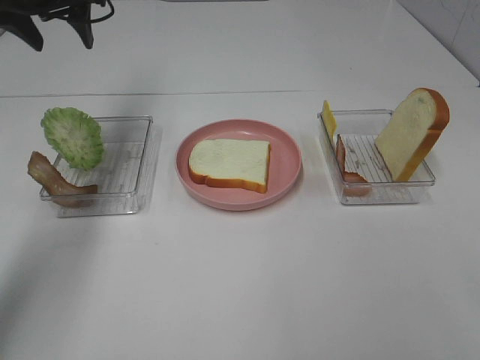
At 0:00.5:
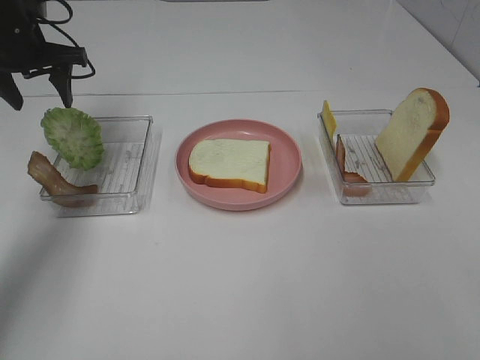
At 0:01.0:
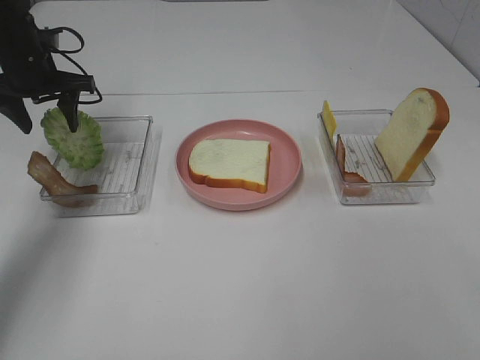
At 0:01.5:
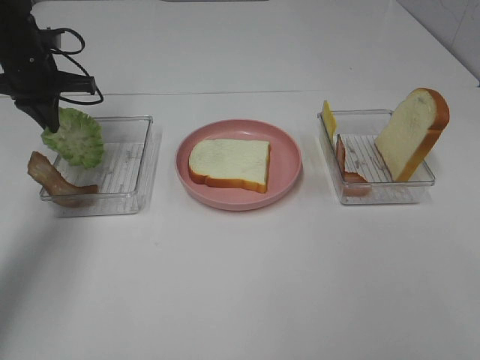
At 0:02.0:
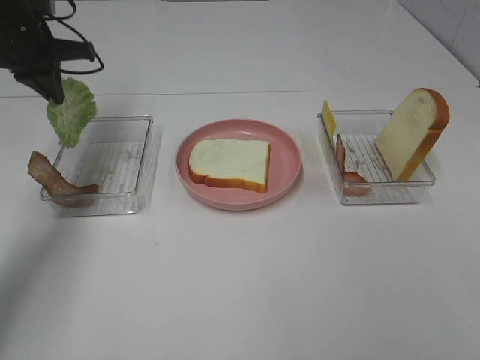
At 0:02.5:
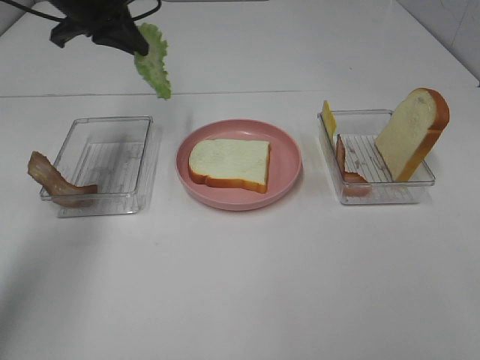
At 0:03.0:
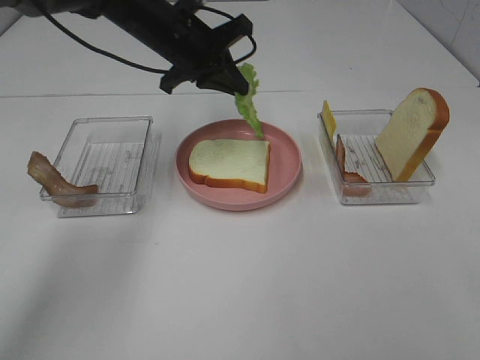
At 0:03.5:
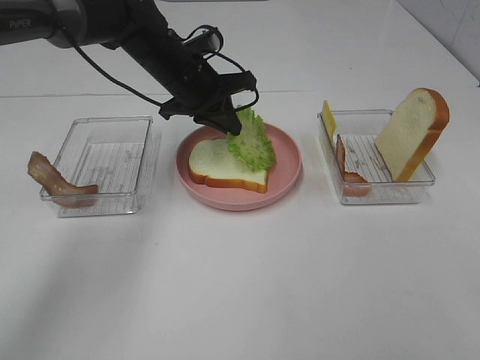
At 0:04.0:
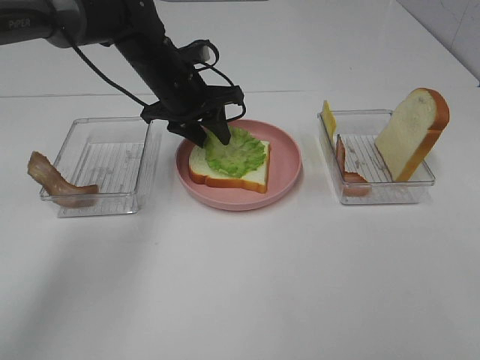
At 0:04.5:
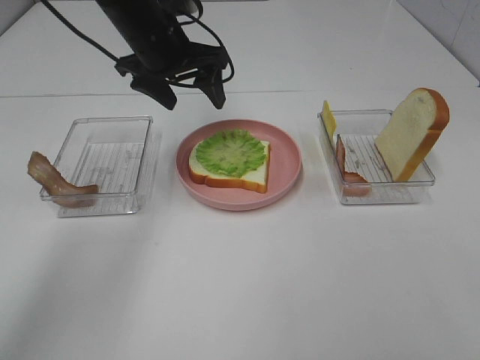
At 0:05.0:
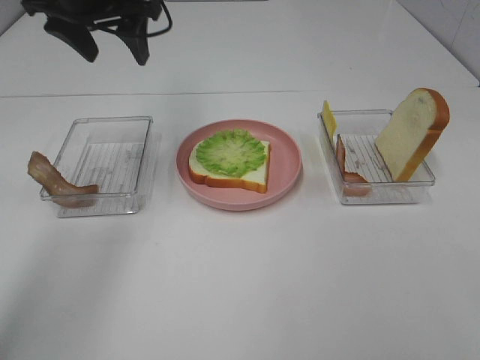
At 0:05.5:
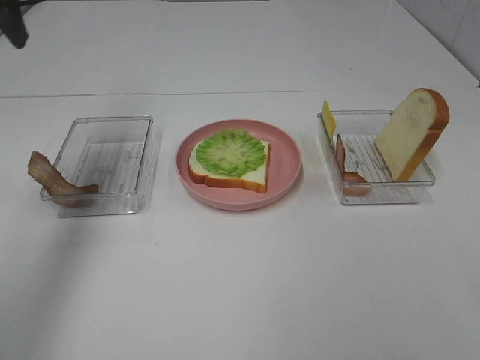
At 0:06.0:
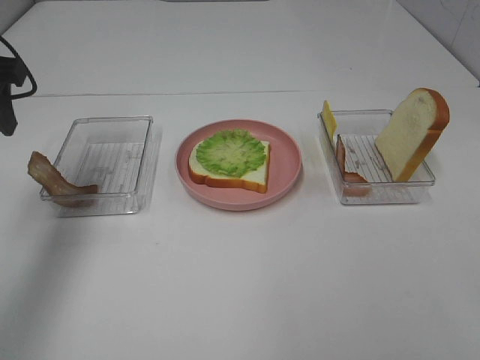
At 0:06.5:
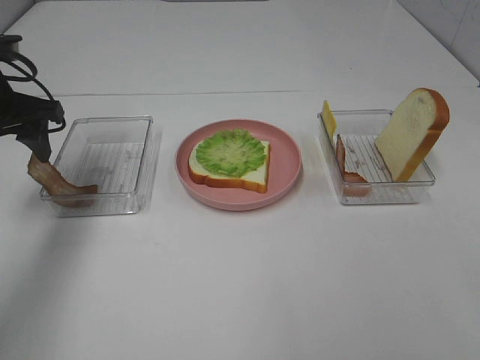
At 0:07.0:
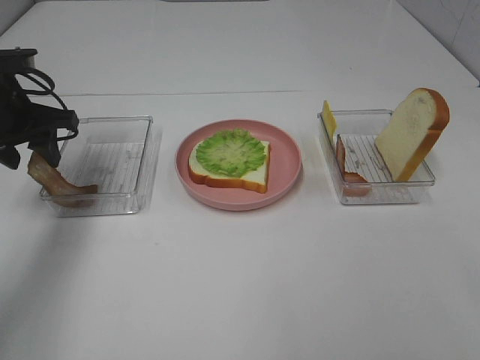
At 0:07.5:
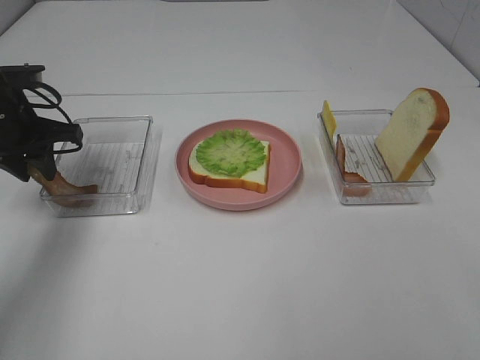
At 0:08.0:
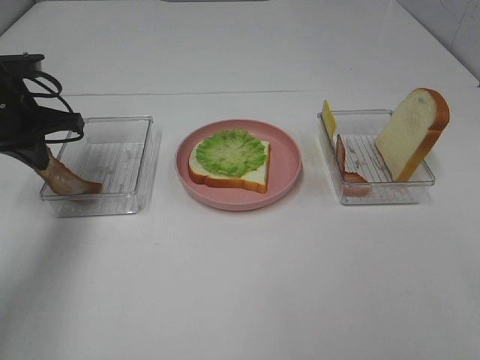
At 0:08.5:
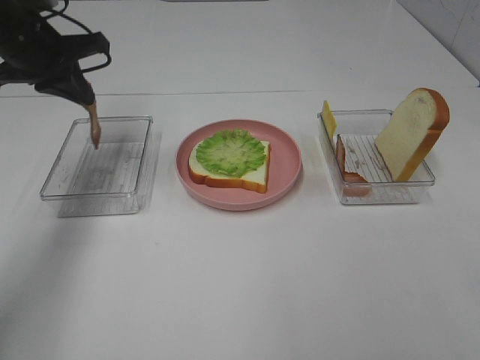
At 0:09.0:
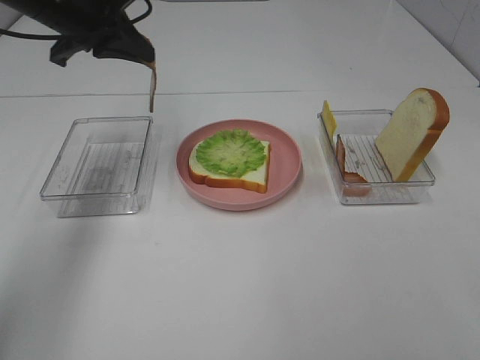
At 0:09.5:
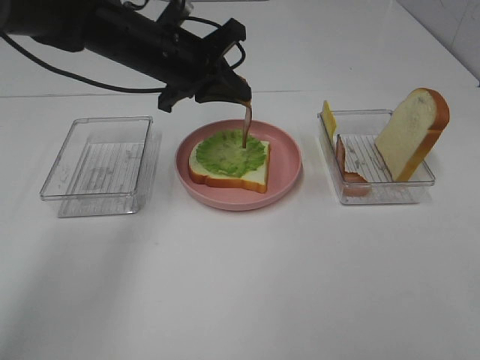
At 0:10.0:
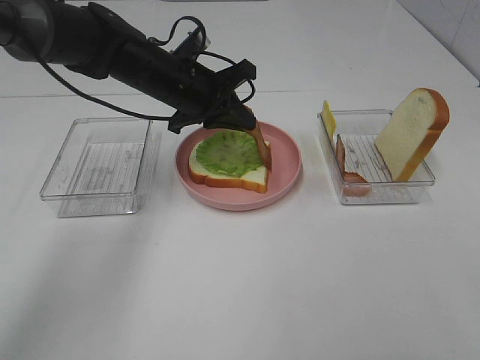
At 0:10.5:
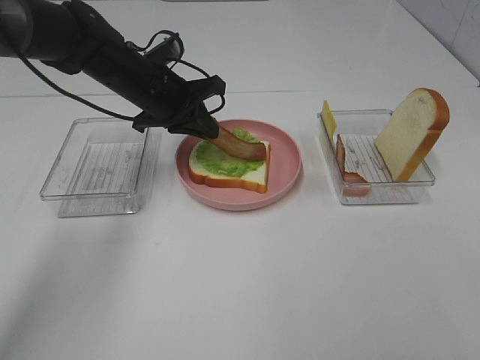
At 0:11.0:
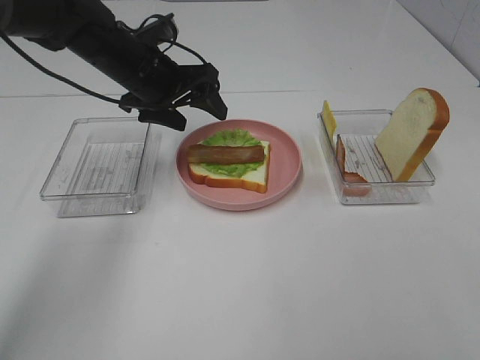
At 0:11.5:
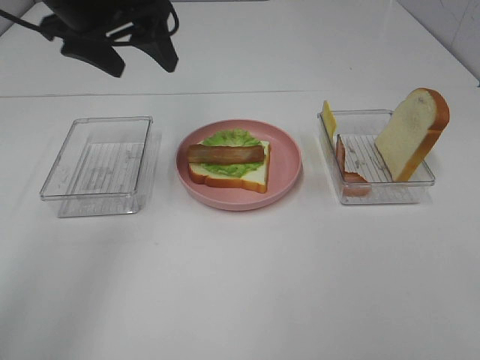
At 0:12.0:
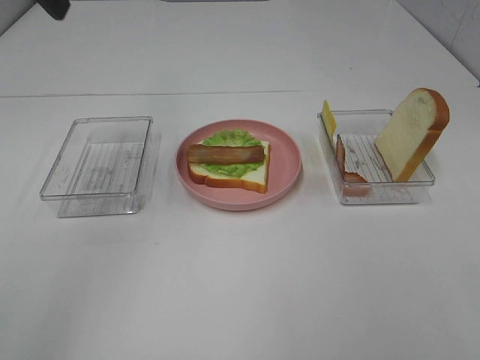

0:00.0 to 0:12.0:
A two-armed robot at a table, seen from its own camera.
Task of the whole recording: Make sandwiches.
Step, 0:00.0 to 0:01.5: Left hand:grab the lettuce slice.
Step, 0:02.0 to 0:04.0: Left hand:place the lettuce slice on the bread slice.
Step, 0:04.5 to 0:08.0: Left hand:grab the bacon.
Step, 0:08.5 to 0:11.0: Left hand:place bacon on lettuce slice.
0:00.0 to 0:02.0: The left gripper heads downward, covering some 5 cm, and closes up.
0:02.0 to 0:04.0: The left gripper is displaced to the right by approximately 20 cm, and opens its fingers.
0:04.0 to 0:06.0: The left gripper heads to the left, backward and upward, covering roughly 25 cm.
0:06.0 to 0:08.0: The left gripper travels downward and forward by roughly 10 cm, and closes.
0:08.0 to 0:10.0: The left gripper moves to the right, about 20 cm.
0:10.0 to 0:12.0: The left gripper travels upward, to the left and backward by approximately 30 cm, and opens up.

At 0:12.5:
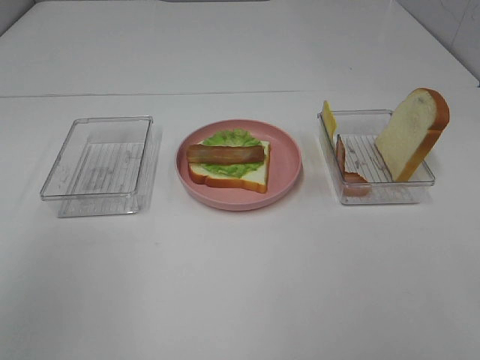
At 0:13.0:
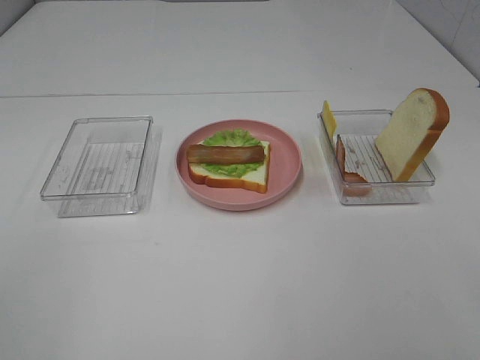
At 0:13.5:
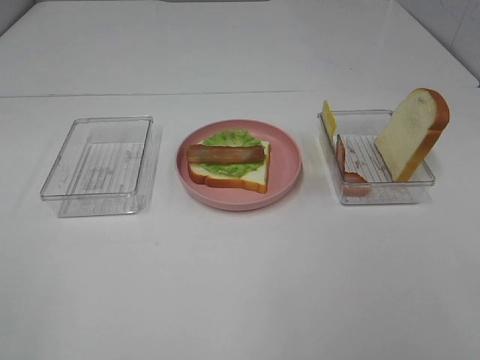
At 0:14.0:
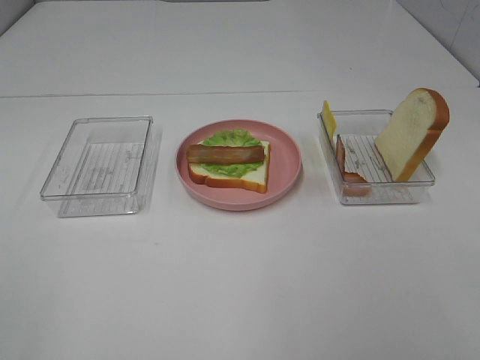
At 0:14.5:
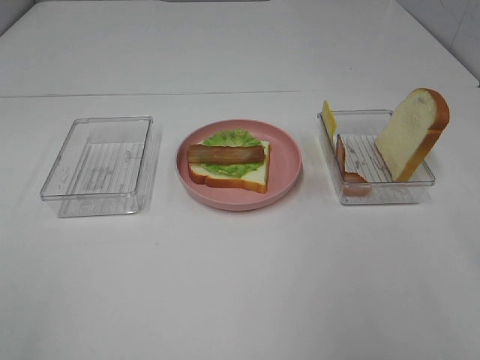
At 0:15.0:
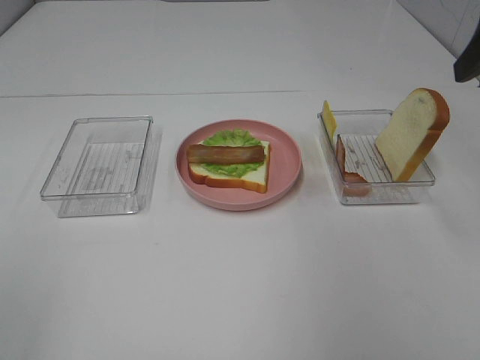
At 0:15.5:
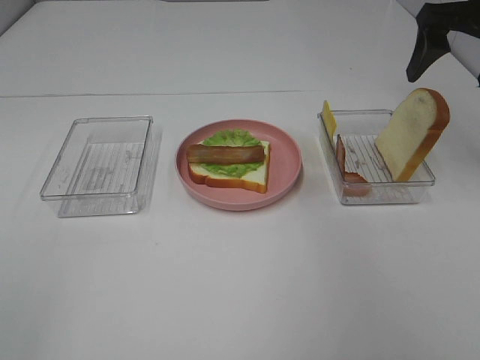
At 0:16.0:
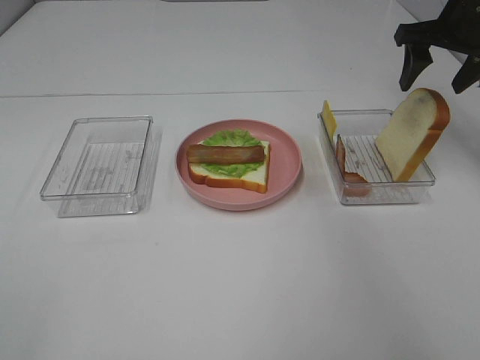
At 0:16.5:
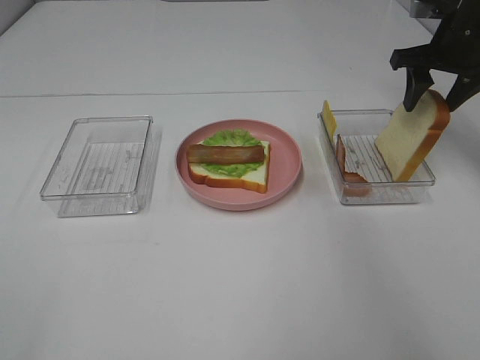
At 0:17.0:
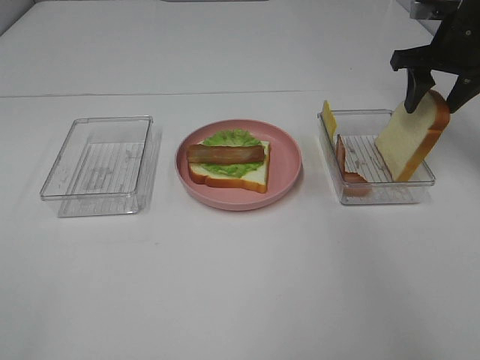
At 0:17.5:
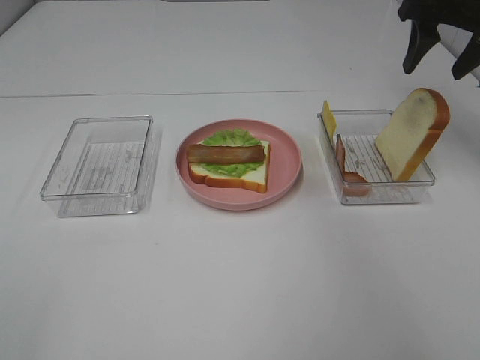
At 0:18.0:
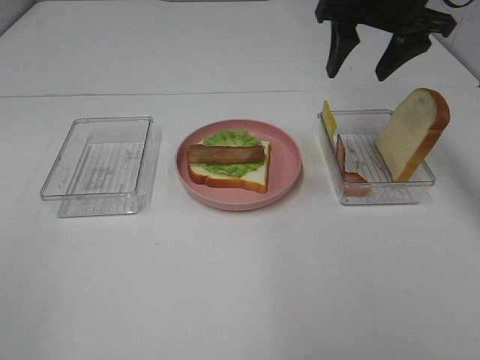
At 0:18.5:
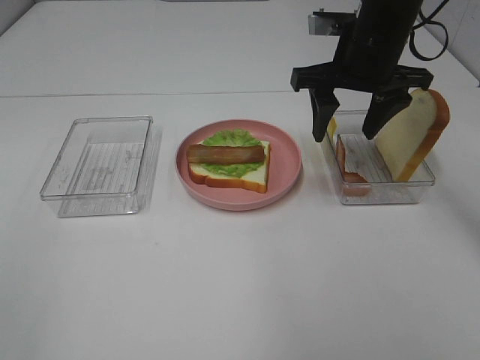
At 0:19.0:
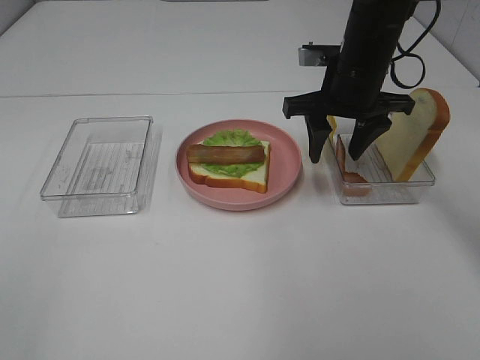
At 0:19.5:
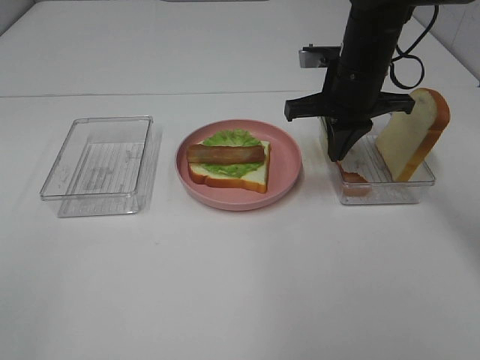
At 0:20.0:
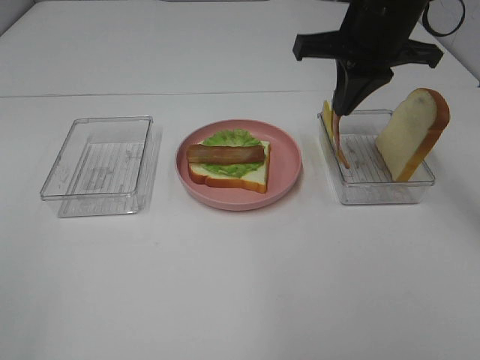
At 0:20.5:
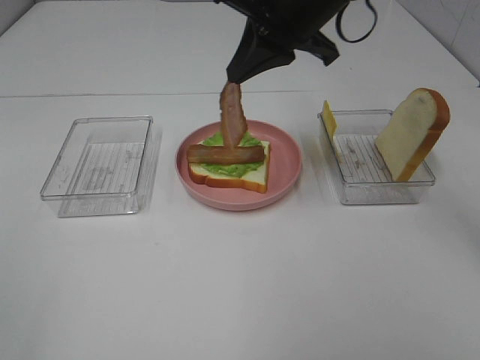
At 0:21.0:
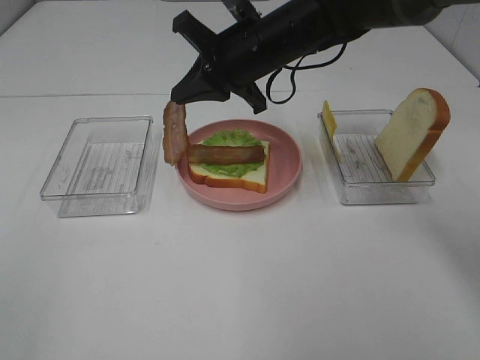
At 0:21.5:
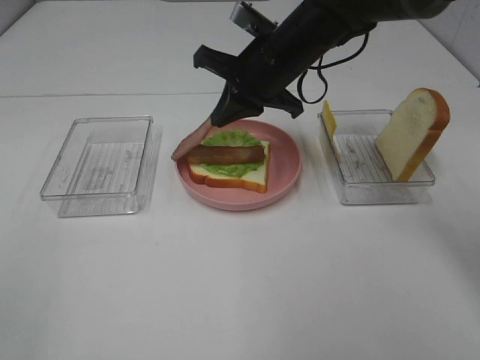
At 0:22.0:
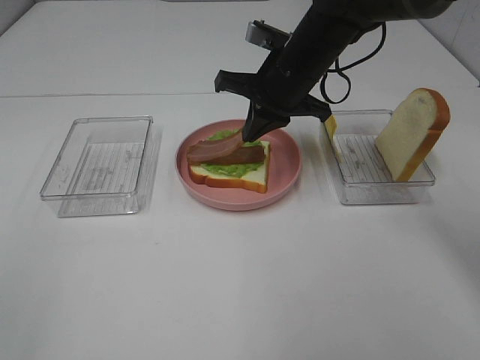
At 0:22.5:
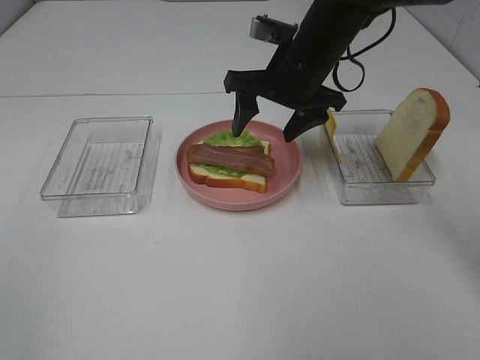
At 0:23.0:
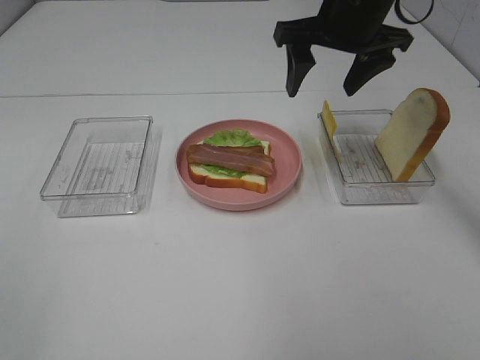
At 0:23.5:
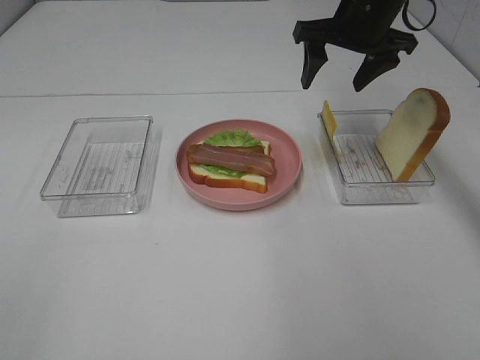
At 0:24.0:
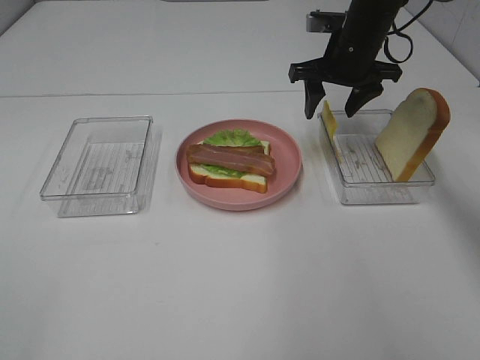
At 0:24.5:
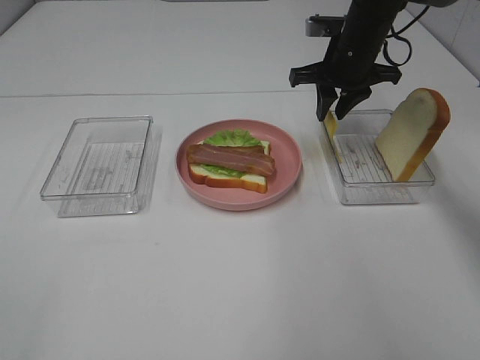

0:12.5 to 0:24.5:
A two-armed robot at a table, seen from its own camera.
Task of the whole recording: Make sandwiches.
Step, 0:12.5 to 0:19.5: Right hand:grab the bacon.
Step, 0:20.0 to 0:22.0: Right hand:place bacon on bacon.
0:14.5 to 0:16.5: The right gripper goes some 30 cm forward, and closes its fingers.
0:16.5 to 0:18.5: The right gripper heads to the left and backward, covering approximately 15 cm.
0:18.5 to 0:20.5: The right gripper heads to the left, covering some 5 cm, and closes up.
0:20.5 to 0:22.5: The right gripper is displaced downward by about 5 cm, and opens up.
0:22.5 to 0:24.5: The right gripper travels forward and to the right by approximately 10 cm, travels upward and back again, roughly 5 cm each way, and closes up.

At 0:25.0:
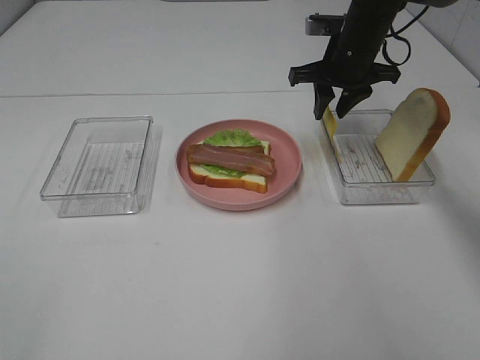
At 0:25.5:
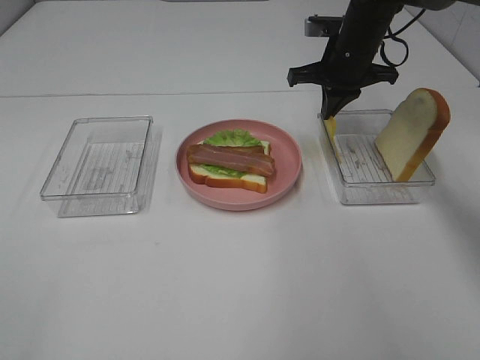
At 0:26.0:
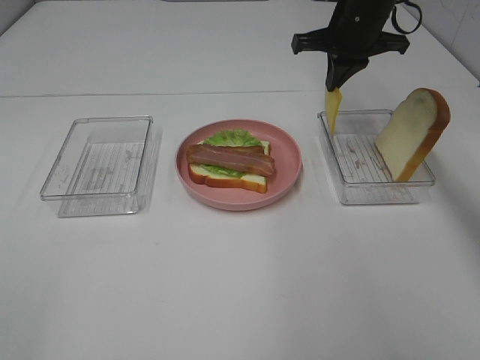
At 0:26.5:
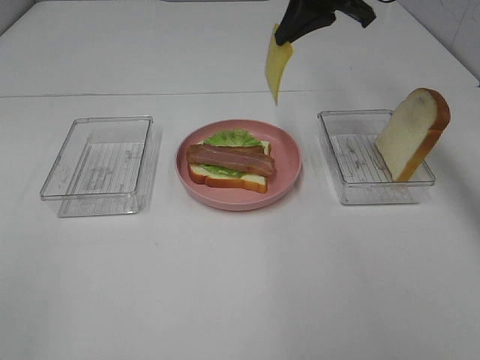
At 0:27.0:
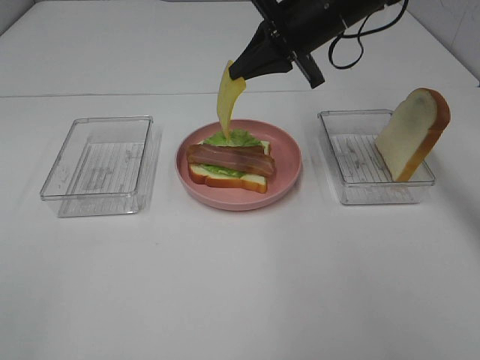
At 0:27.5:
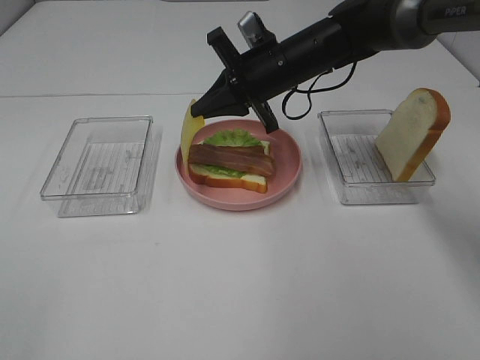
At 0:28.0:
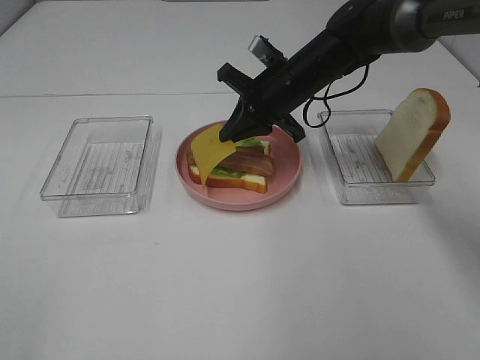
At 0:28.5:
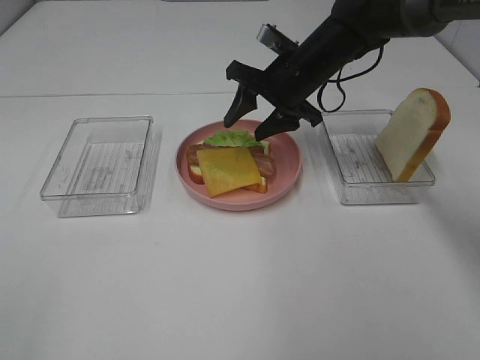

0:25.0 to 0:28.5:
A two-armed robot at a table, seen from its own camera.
Task of the whole recording: Make sandwiches.
0:25.0 to 0:27.0: The right gripper moves upward and to the left, roughly 10 cm, and closes.
0:27.0 to 0:28.5: The right gripper travels downward by roughly 5 cm, and opens.
